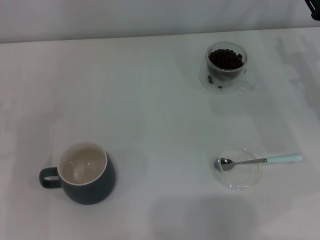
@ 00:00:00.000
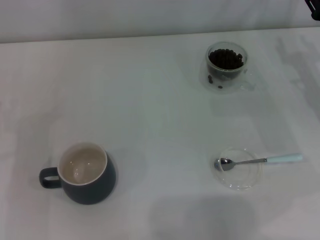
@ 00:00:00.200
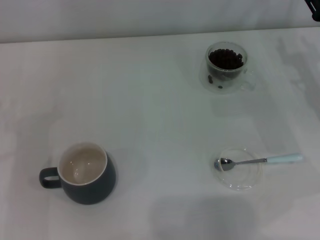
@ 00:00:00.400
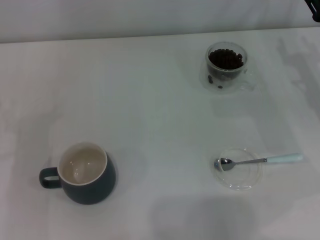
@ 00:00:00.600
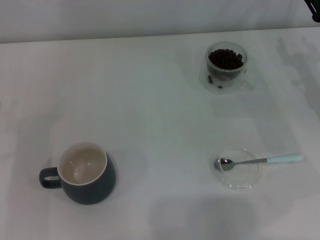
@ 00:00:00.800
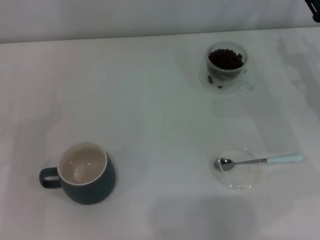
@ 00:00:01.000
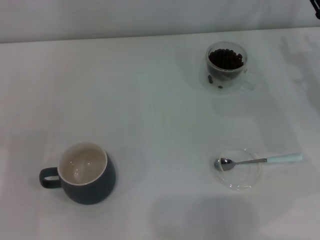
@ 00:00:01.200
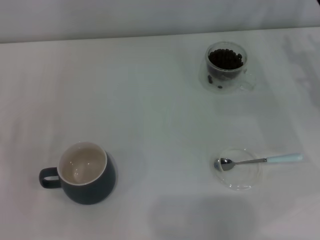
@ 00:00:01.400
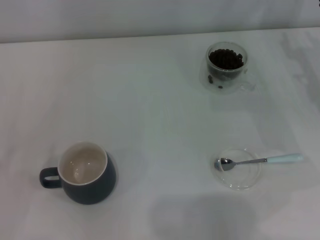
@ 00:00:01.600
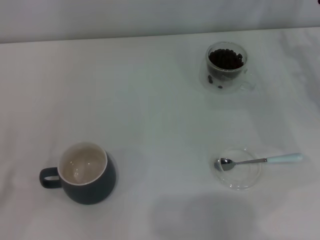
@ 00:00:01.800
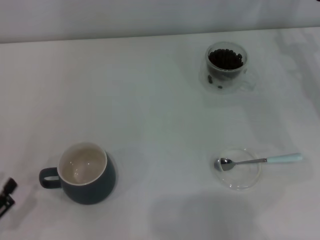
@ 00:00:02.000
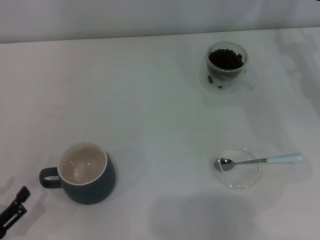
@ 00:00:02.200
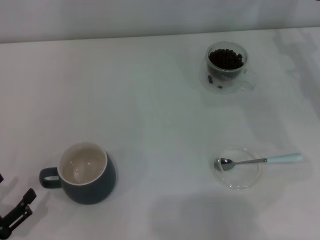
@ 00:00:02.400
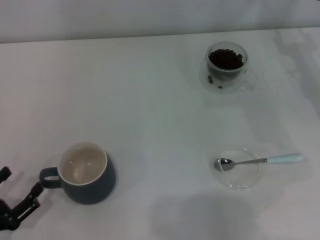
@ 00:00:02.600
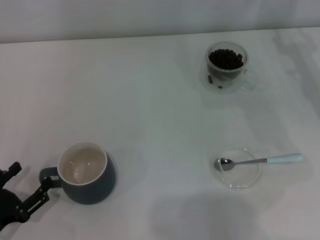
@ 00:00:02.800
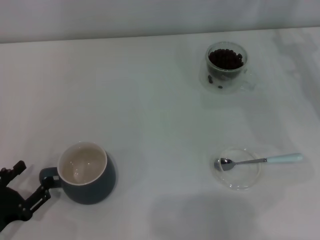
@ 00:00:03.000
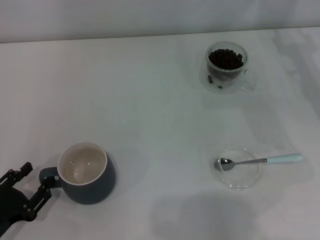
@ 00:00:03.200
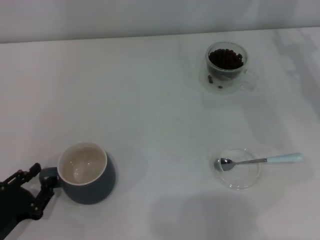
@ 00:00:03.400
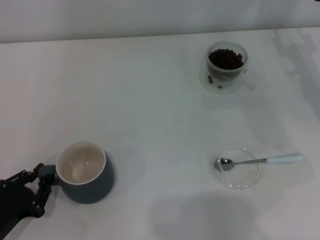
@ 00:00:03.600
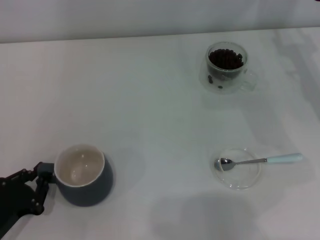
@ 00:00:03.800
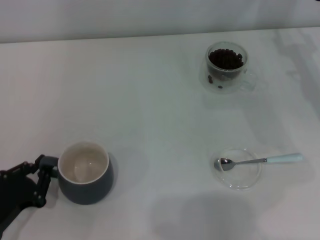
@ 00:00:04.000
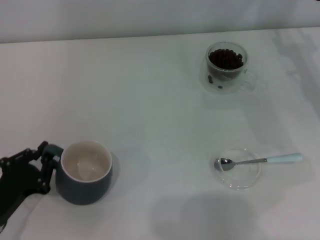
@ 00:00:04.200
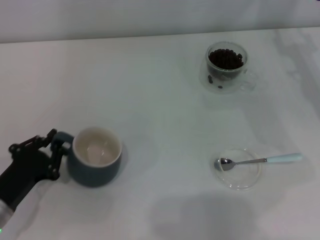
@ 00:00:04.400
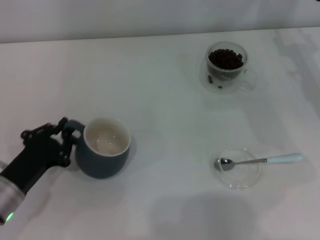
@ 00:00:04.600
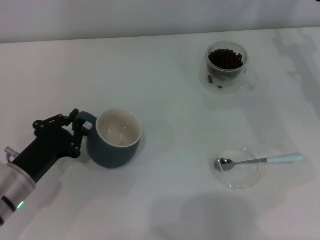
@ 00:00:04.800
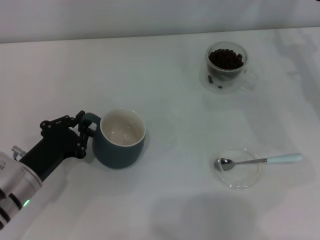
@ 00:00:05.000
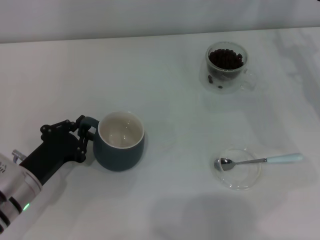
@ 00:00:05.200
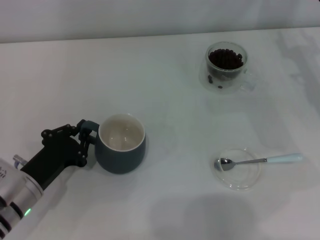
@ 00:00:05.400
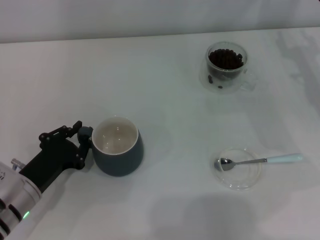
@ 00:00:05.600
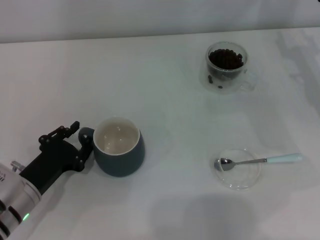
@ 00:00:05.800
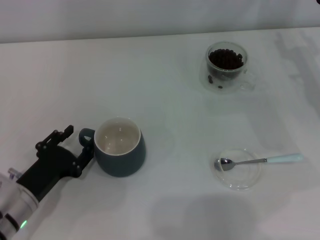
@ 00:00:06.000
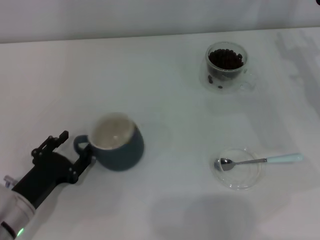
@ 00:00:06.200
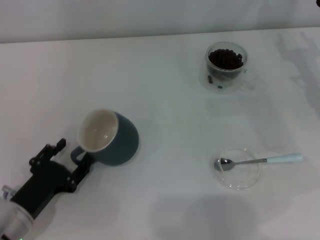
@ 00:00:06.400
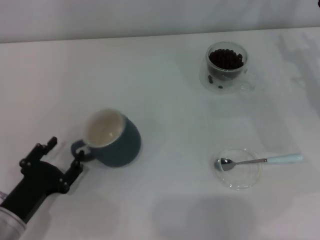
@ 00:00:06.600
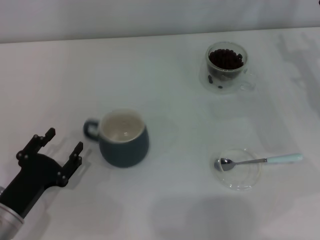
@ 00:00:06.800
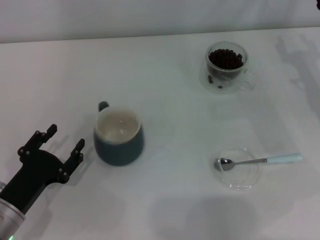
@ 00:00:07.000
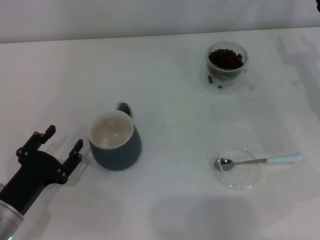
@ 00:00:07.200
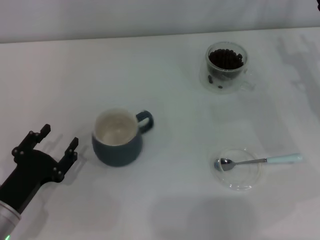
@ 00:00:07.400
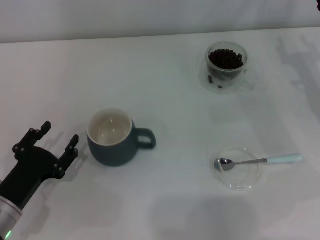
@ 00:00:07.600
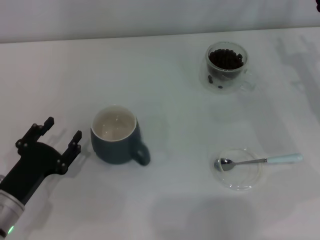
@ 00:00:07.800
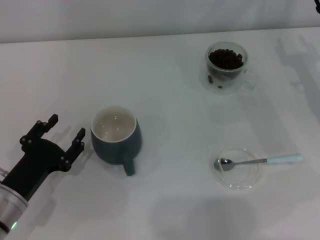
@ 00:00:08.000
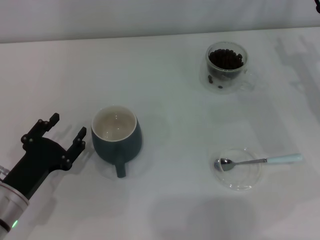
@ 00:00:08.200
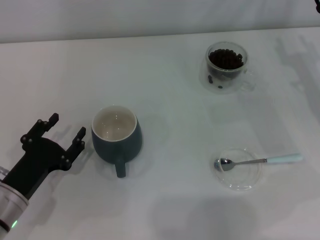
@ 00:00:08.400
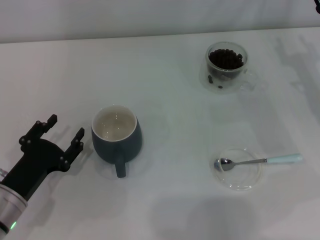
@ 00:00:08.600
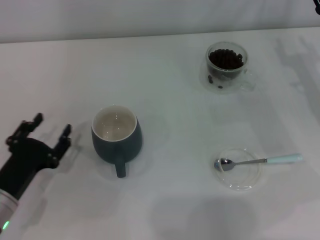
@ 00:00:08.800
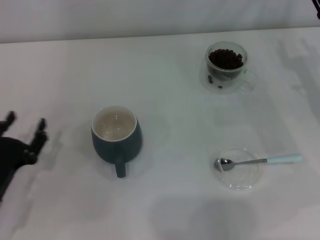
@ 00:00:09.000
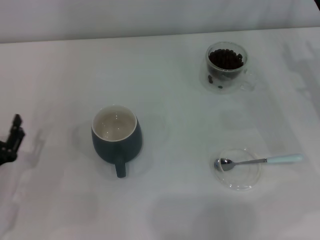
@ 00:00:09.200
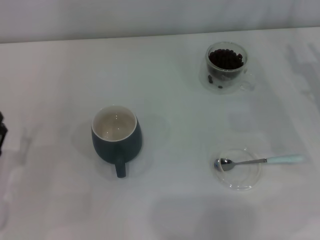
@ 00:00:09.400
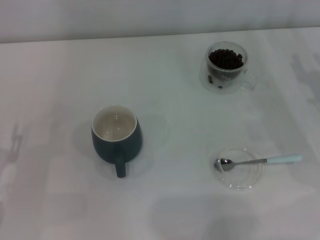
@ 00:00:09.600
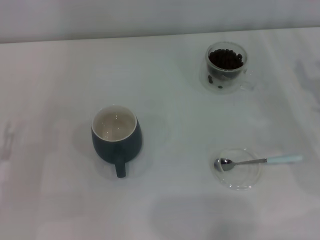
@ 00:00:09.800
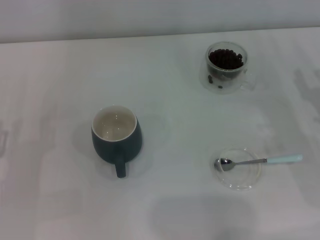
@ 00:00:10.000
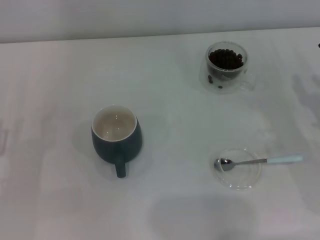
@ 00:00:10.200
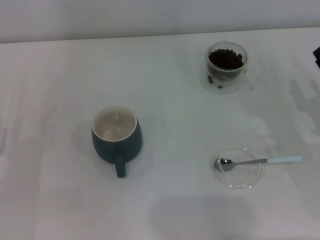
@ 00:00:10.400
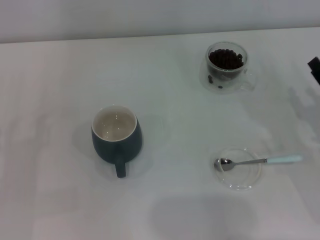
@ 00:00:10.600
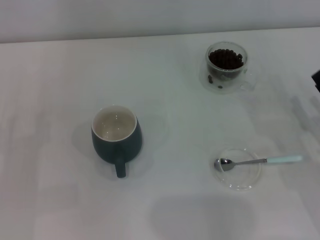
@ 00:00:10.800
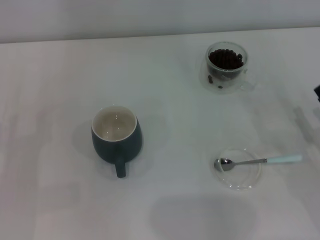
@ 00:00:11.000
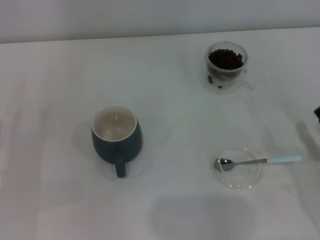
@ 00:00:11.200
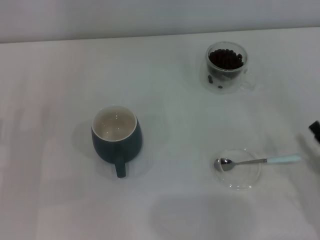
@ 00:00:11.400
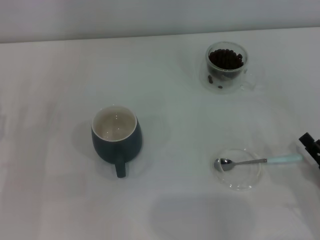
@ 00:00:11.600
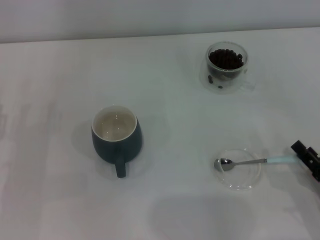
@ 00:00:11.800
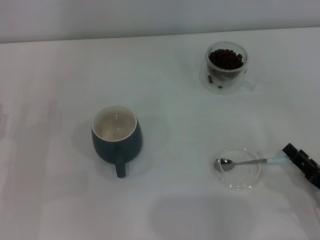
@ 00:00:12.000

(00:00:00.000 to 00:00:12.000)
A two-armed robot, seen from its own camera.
Task of the whole recording: Use a blue spoon to take out the coffee beans from the glass and pour them into the gray cup.
Step, 00:00:00.000 - 00:00:06.800: Move the cup to the center of view with the left gripper.
00:00:01.600 - 00:00:03.000: The left gripper changes place by about 5 cm.
00:00:03.000 - 00:00:04.400: The left gripper shifts by about 5 cm, and closes its fingers.
00:00:04.400 - 00:00:06.000: The left gripper opens its fingers.
00:00:06.000 - 00:00:09.000: There are only small adjustments of the grippers.
00:00:09.000 - 00:00:10.400: The left gripper changes place by roughly 5 cm.
00:00:10.400 - 00:00:12.000: The right gripper moves backward, some 10 cm.

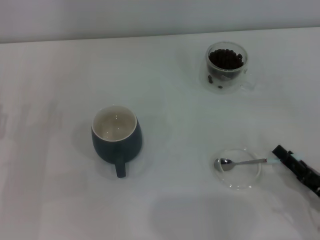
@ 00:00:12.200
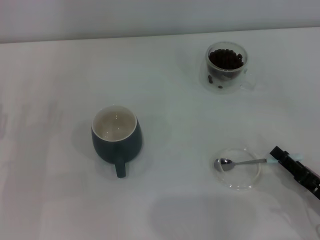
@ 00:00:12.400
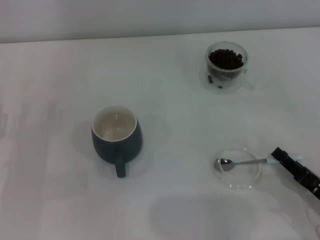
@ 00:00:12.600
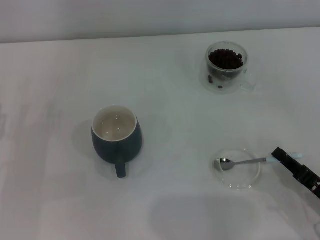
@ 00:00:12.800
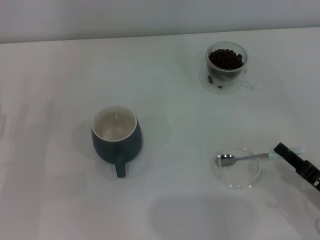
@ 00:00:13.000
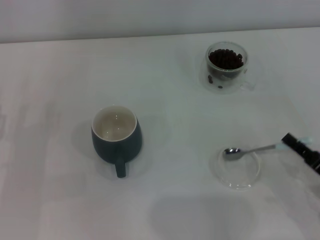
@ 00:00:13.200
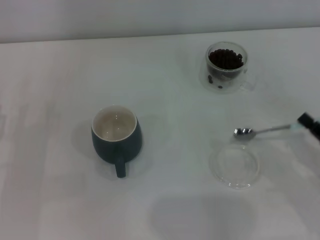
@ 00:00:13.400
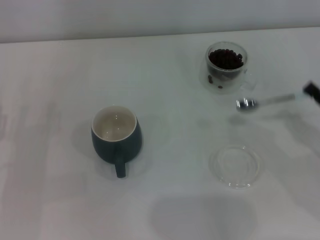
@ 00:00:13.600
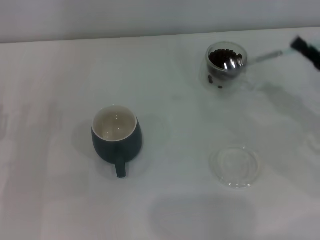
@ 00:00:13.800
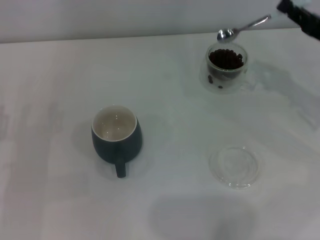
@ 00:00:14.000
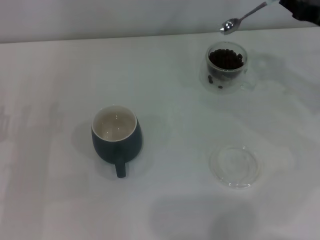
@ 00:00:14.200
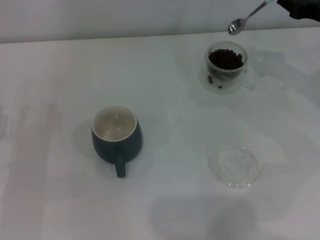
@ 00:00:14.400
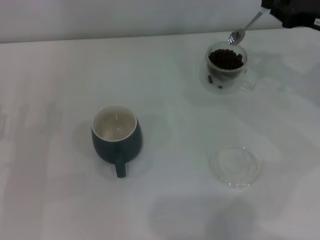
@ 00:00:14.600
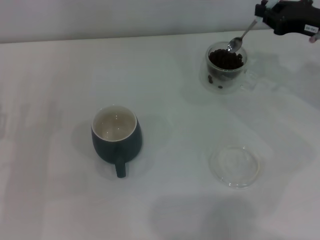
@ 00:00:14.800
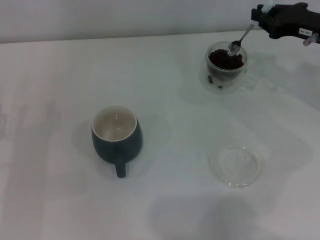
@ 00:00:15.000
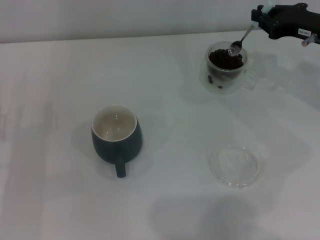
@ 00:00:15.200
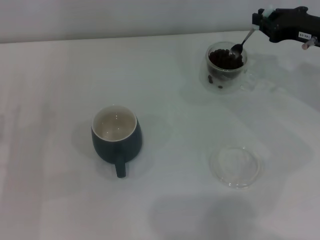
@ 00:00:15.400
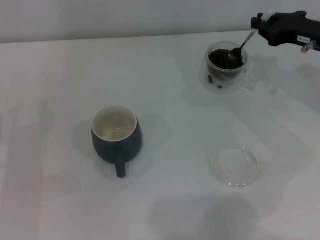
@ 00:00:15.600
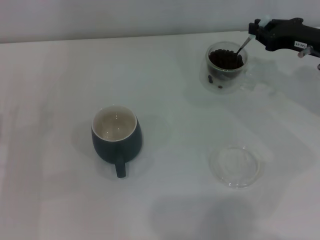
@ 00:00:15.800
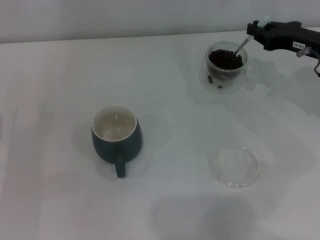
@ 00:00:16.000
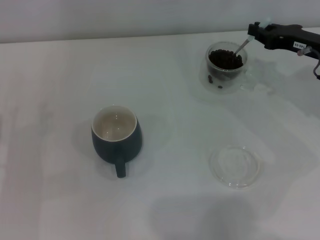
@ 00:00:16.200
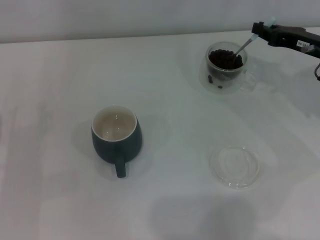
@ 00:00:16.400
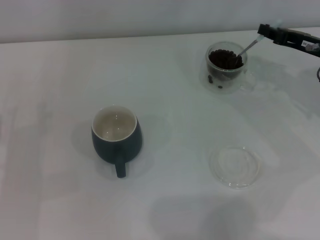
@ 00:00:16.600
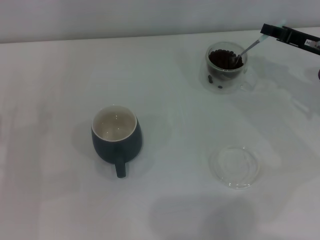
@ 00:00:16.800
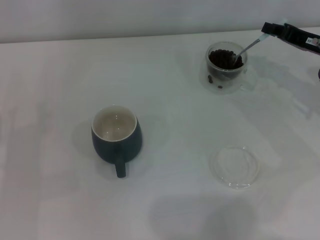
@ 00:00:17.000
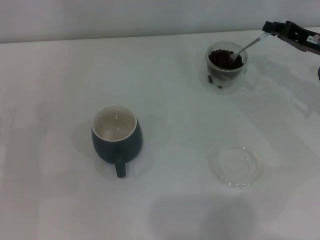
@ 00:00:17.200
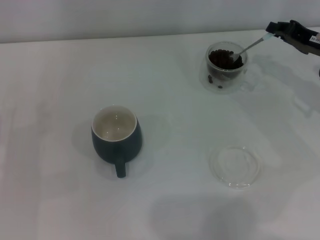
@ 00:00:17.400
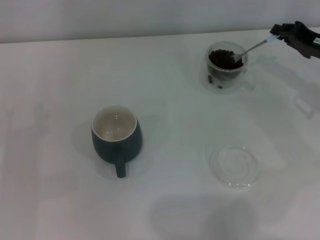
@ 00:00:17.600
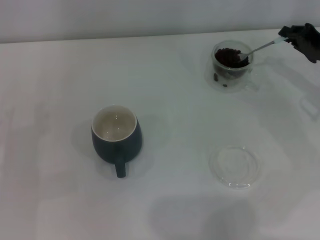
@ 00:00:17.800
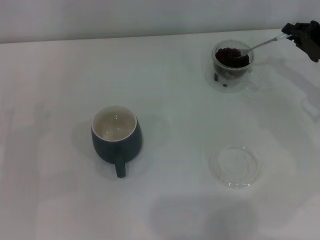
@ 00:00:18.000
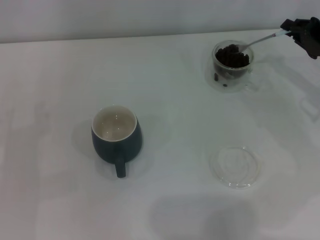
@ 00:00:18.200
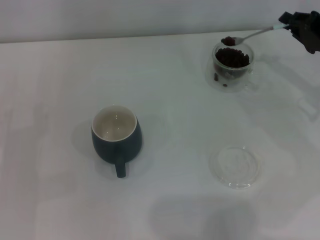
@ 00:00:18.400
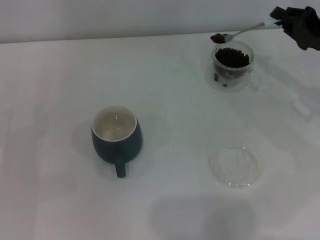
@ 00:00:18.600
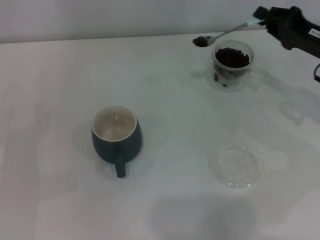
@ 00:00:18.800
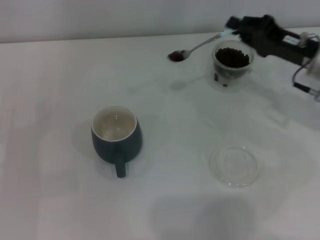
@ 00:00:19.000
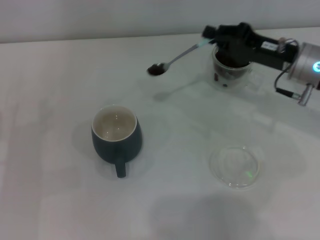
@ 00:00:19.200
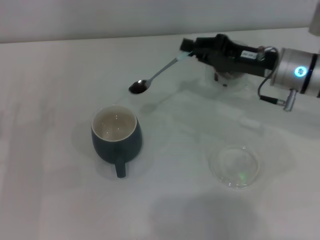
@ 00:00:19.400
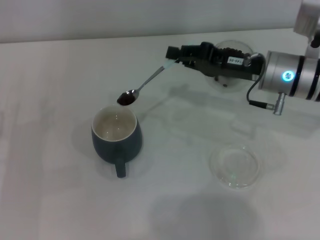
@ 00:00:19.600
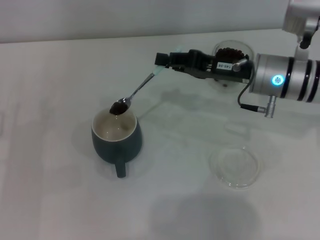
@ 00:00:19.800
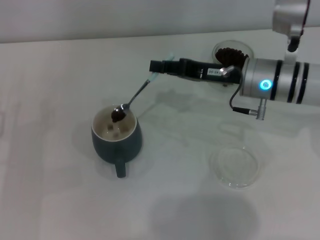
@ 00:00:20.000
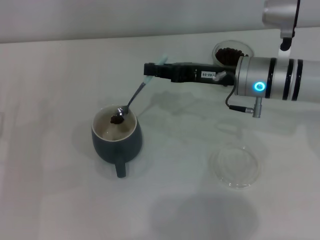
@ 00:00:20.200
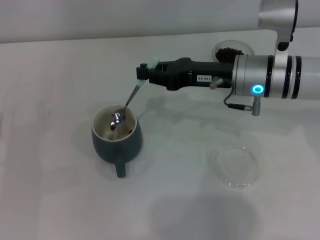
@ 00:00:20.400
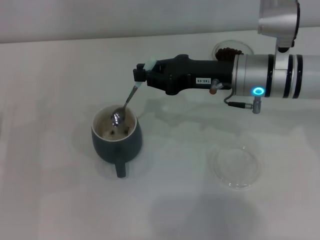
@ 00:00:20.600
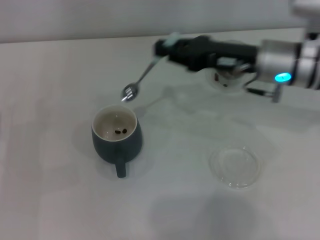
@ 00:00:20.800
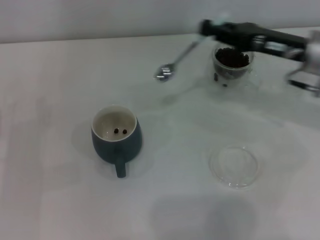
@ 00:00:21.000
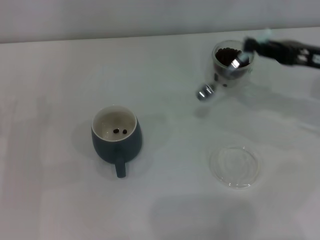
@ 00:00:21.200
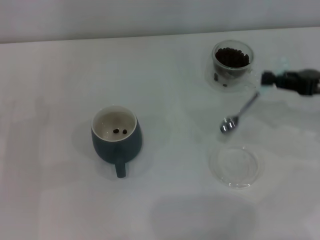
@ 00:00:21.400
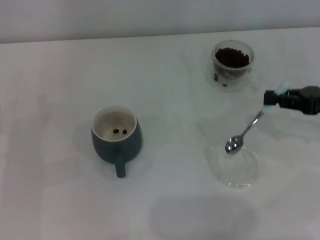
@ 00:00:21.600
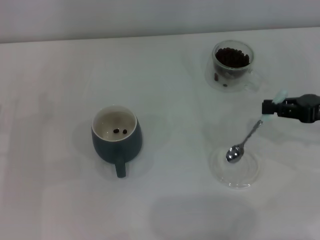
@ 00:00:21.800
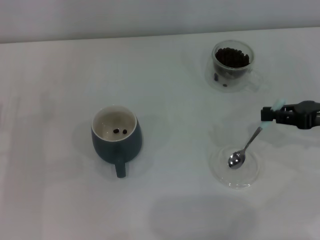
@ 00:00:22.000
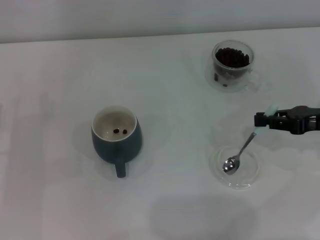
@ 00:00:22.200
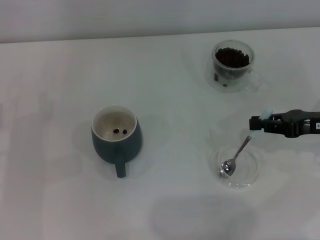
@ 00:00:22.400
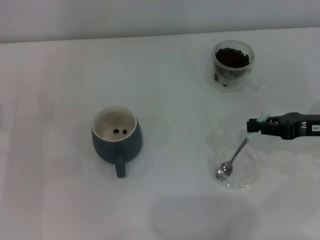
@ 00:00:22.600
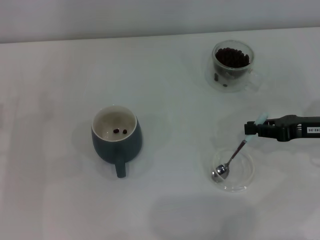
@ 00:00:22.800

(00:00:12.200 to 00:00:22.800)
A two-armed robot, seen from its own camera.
Task of the whole recording: Use a blue spoon to take out the coffee beans from the glass and pour them into the gray cup.
Step, 00:00:13.600 - 00:00:20.600: Scoop a spoonful of beans into the cup with the right gripper.
00:00:12.200 - 00:00:13.800: The right gripper travels forward and upward by roughly 15 cm, and closes up.
00:00:13.800 - 00:00:15.200: The right gripper shifts roughly 10 cm forward and upward.
00:00:18.200 - 00:00:19.800: The right gripper is displaced to the left by approximately 15 cm.
00:00:19.800 - 00:00:21.200: The right gripper goes some 15 cm to the right.
00:00:21.200 - 00:00:22.800: The right gripper shifts approximately 5 cm downward.
